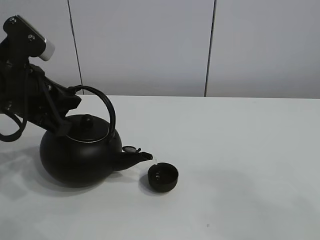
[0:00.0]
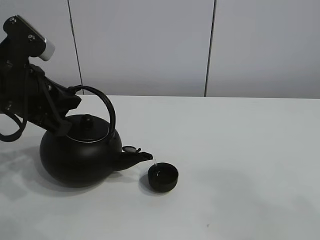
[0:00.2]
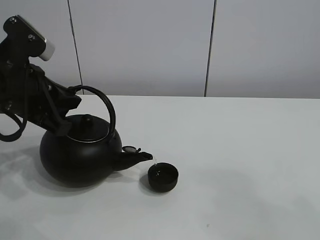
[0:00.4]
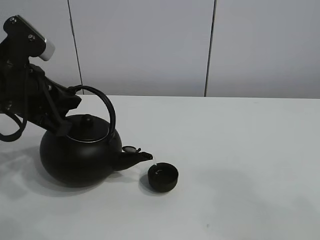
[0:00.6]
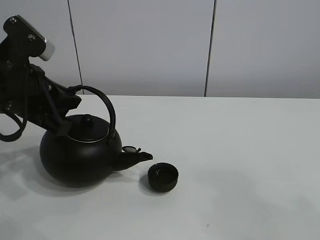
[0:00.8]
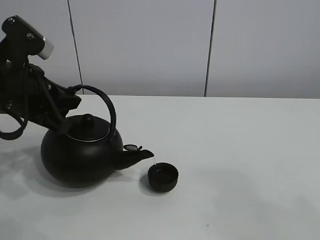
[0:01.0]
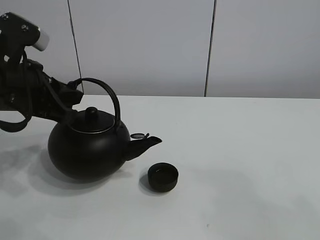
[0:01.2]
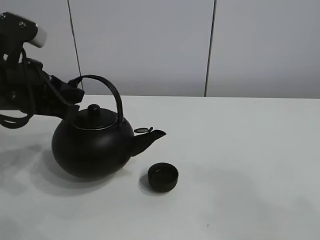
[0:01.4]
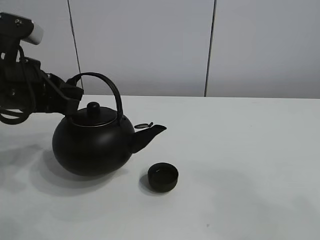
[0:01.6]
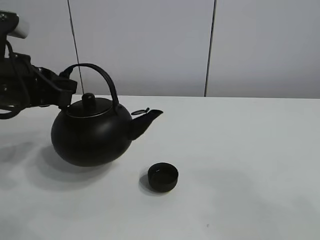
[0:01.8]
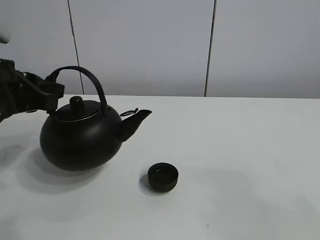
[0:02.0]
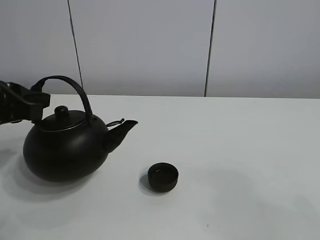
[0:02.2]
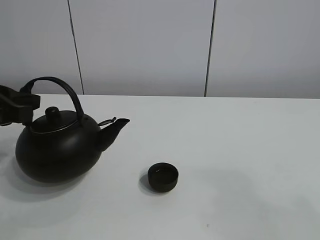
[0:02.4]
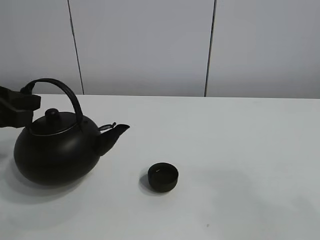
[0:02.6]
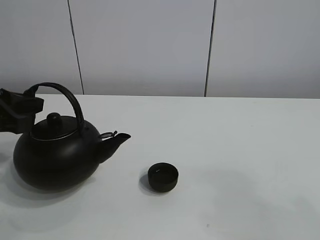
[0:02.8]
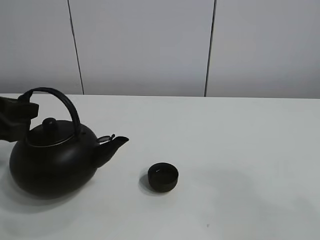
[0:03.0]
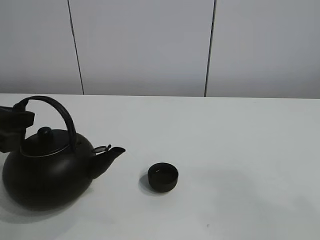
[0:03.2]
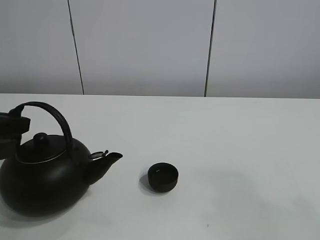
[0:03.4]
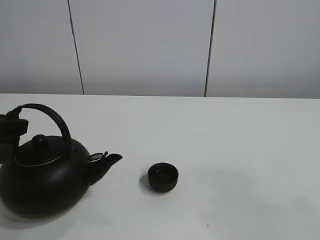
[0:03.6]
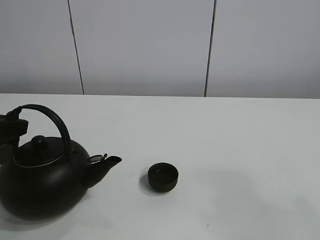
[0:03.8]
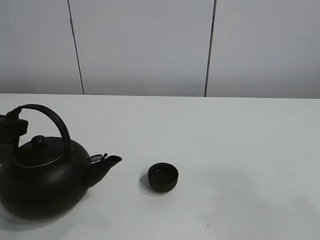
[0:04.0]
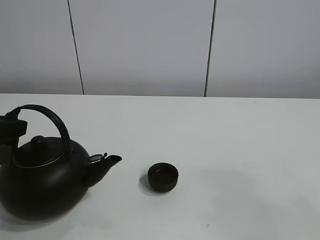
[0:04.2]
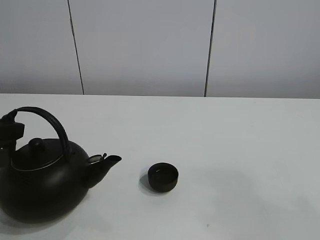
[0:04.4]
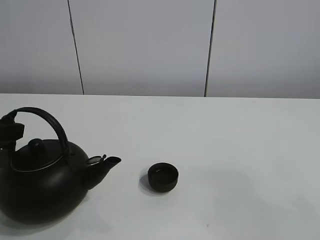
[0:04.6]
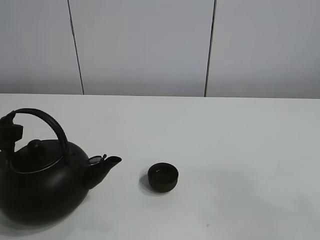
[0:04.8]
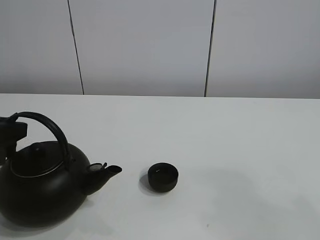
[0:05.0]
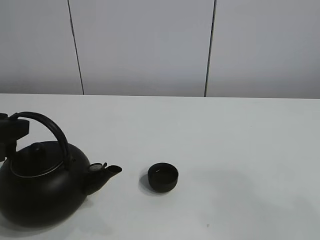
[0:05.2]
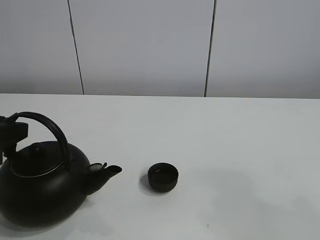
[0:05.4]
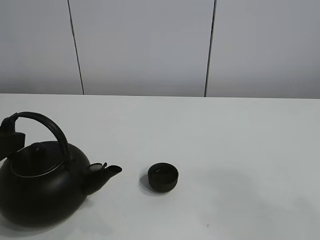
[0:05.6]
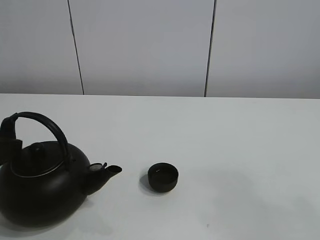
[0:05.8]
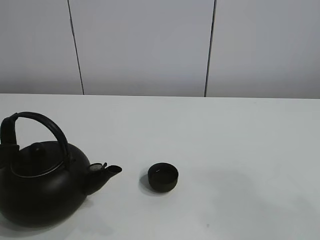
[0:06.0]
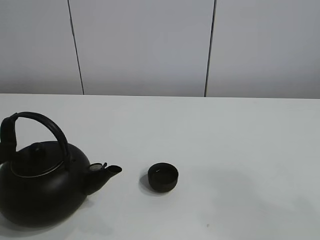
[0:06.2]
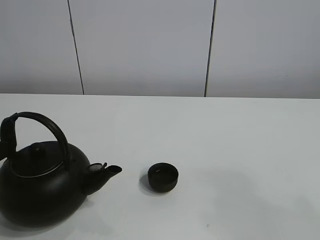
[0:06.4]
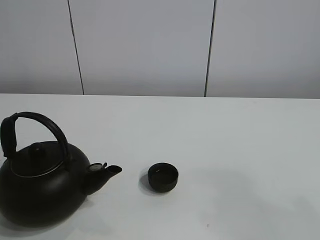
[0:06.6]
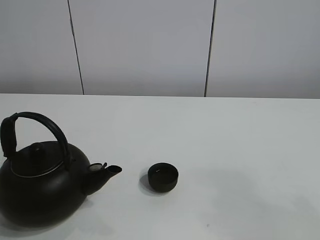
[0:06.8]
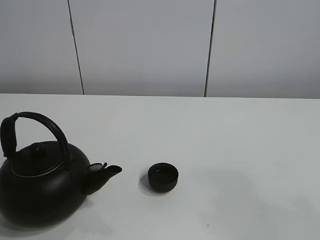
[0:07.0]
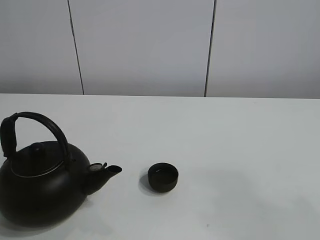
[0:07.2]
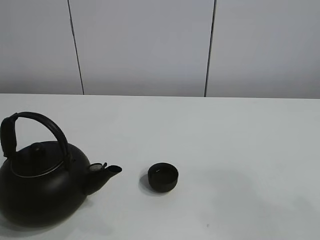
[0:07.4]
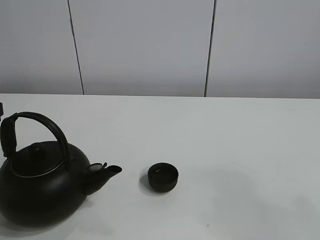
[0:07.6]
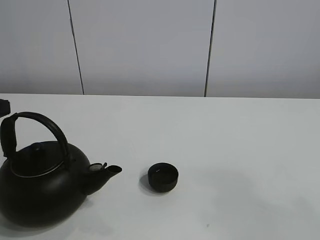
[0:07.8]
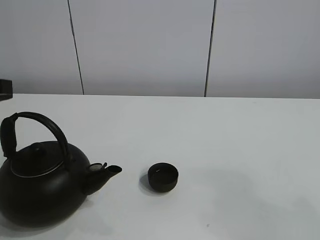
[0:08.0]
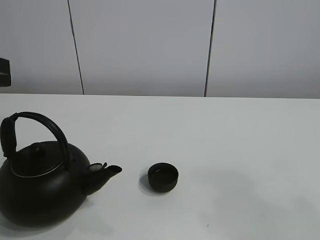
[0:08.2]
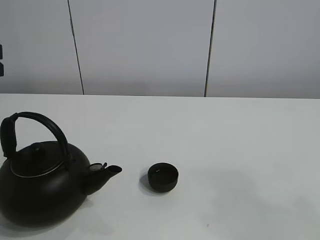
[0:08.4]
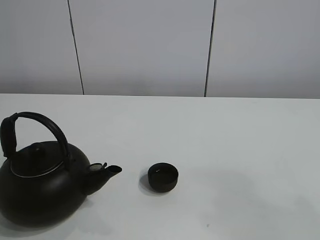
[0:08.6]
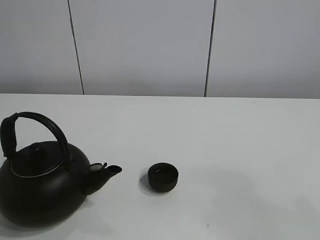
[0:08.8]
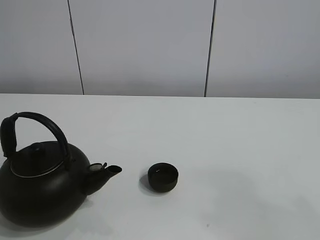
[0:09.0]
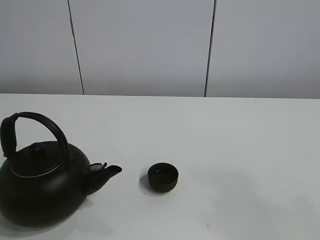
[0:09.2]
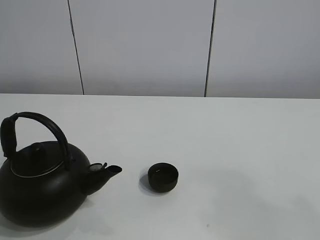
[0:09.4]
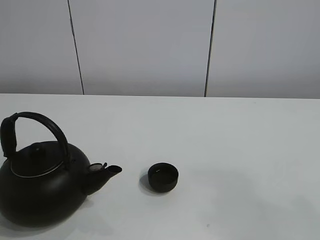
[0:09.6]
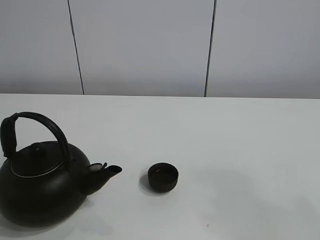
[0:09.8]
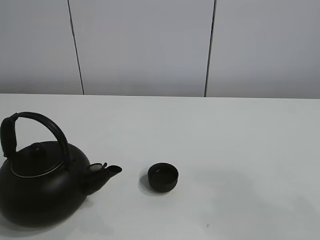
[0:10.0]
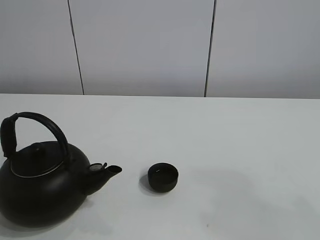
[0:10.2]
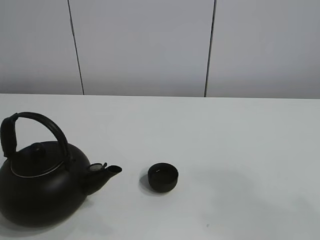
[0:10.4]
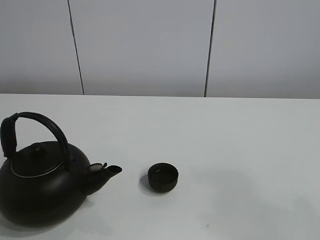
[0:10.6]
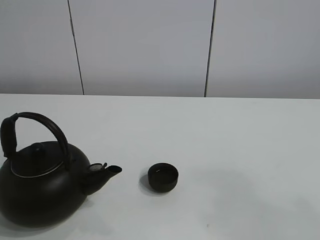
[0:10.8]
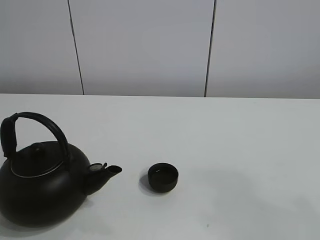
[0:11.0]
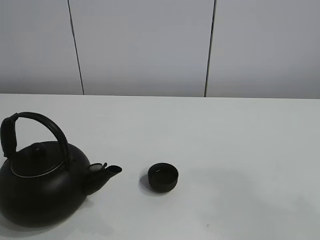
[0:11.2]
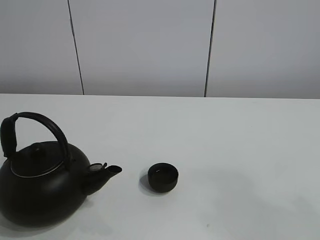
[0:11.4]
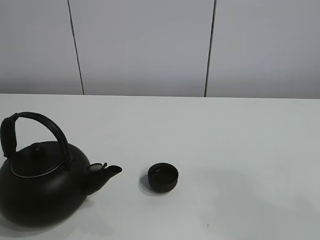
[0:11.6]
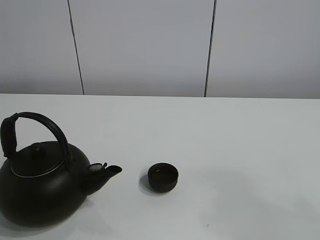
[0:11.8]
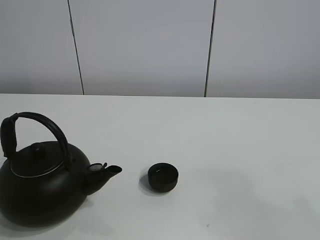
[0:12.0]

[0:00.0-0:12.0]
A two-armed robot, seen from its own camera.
Task of the whole recording: pour tea into the teacup.
0:00.0 to 0:01.6: There are only small adjustments of the grippers.
0:01.6 to 0:03.0: The left gripper heads to the left, covering some 5 cm.
0:03.0 to 0:04.4: The grippers move only a little.
0:04.4 to 0:06.0: The left gripper opens up.
